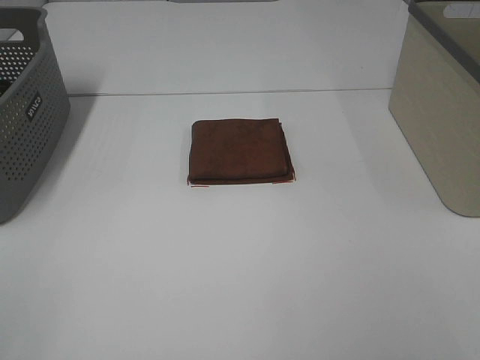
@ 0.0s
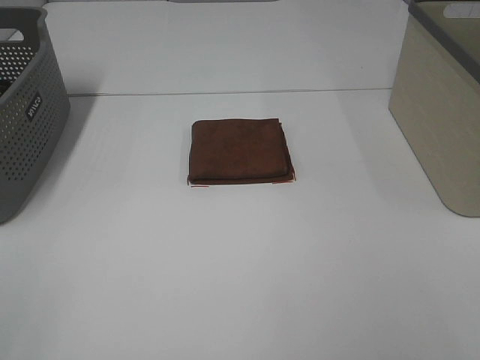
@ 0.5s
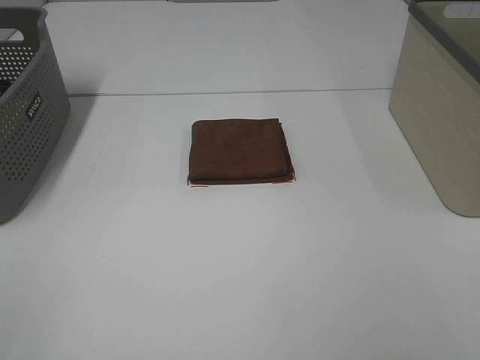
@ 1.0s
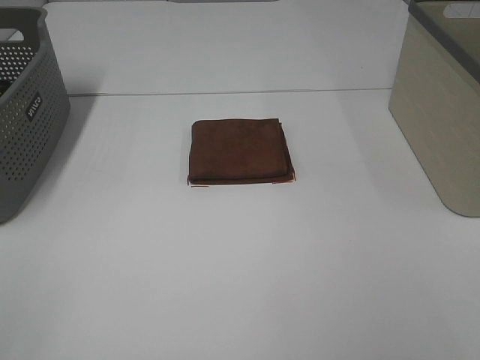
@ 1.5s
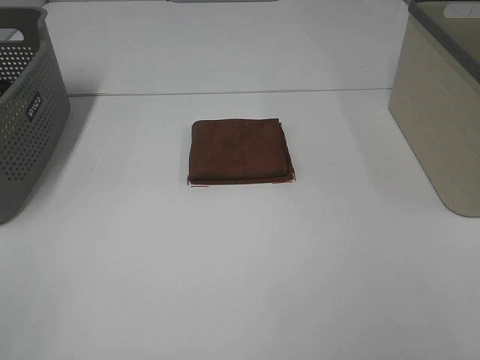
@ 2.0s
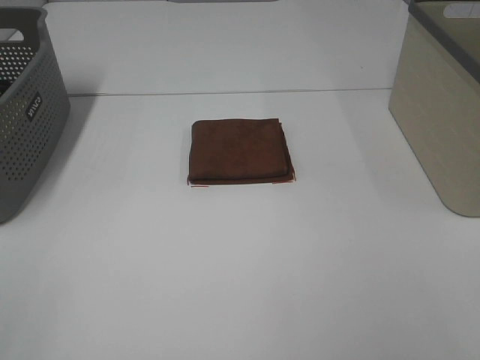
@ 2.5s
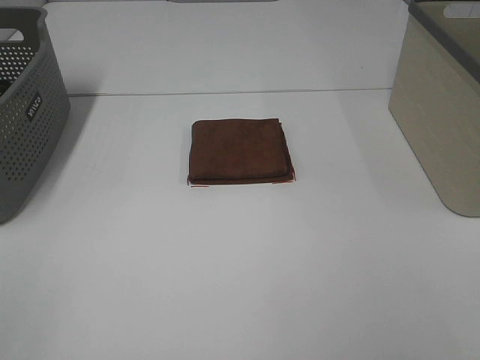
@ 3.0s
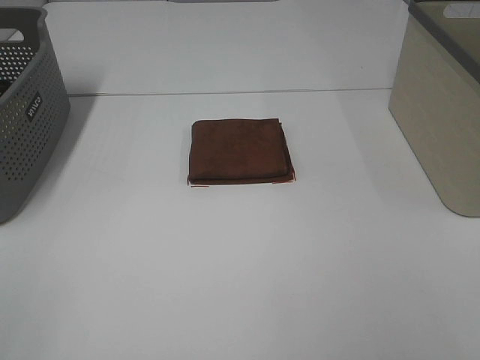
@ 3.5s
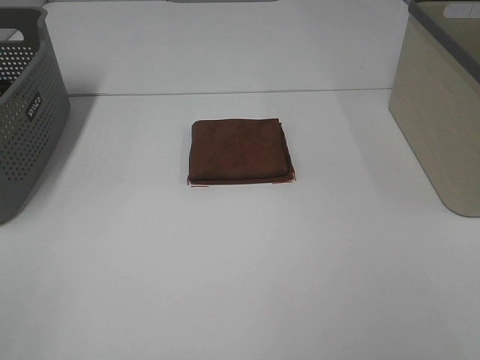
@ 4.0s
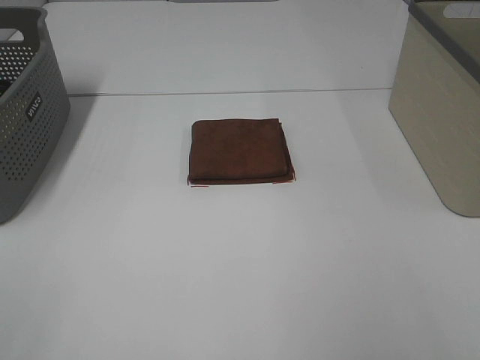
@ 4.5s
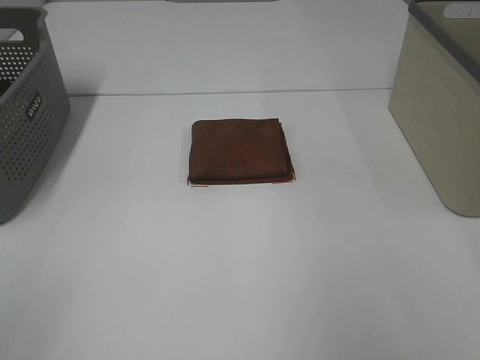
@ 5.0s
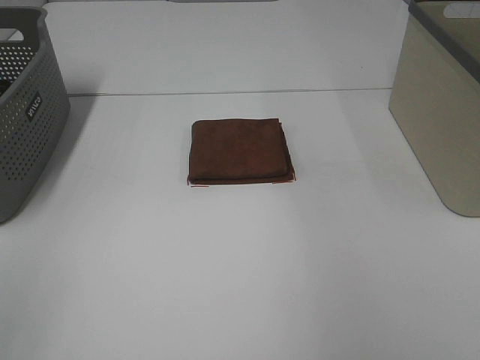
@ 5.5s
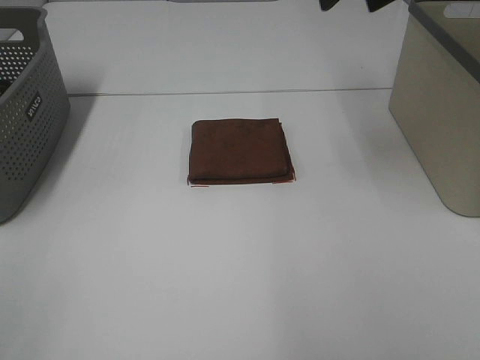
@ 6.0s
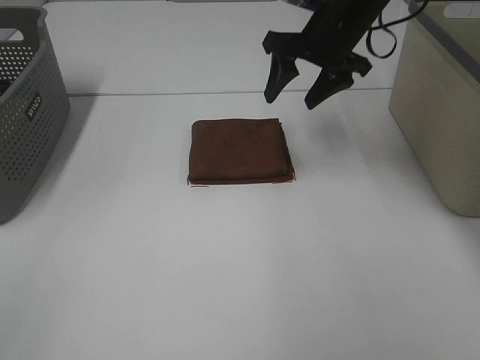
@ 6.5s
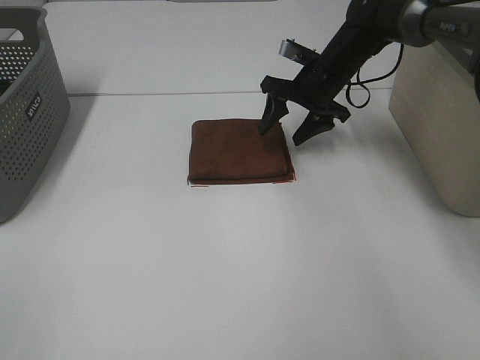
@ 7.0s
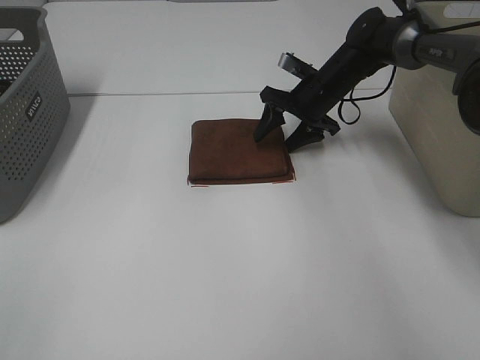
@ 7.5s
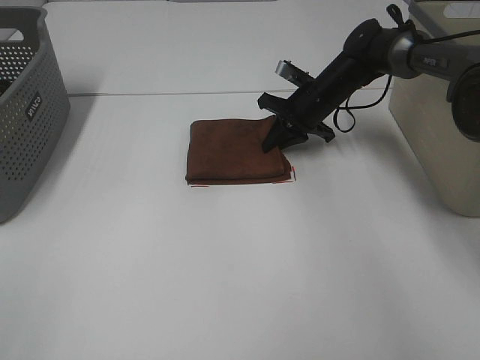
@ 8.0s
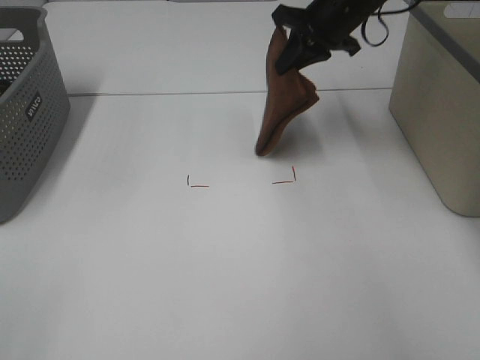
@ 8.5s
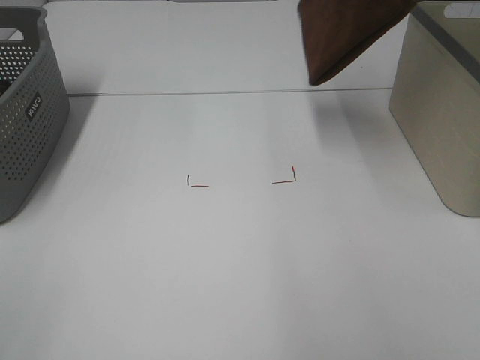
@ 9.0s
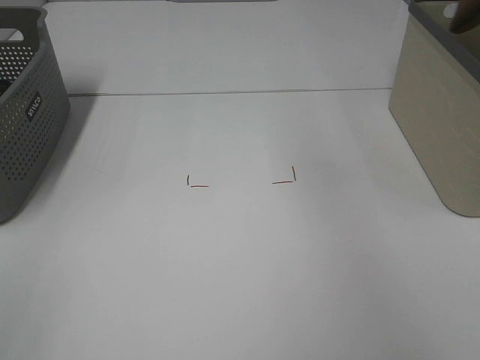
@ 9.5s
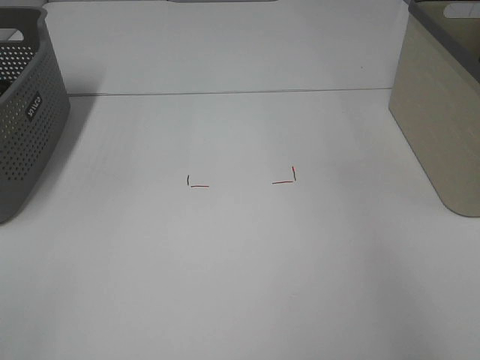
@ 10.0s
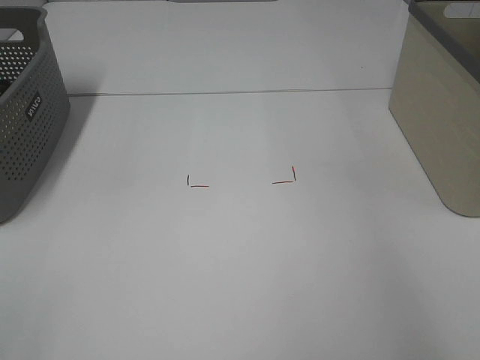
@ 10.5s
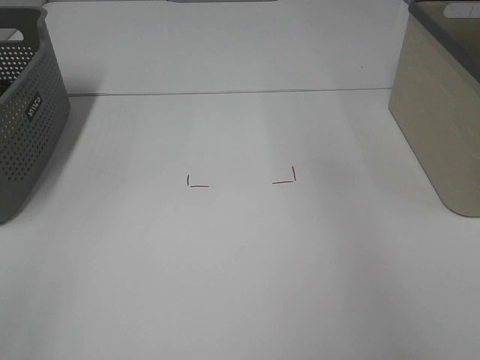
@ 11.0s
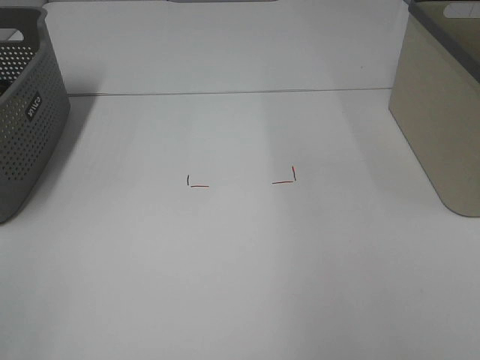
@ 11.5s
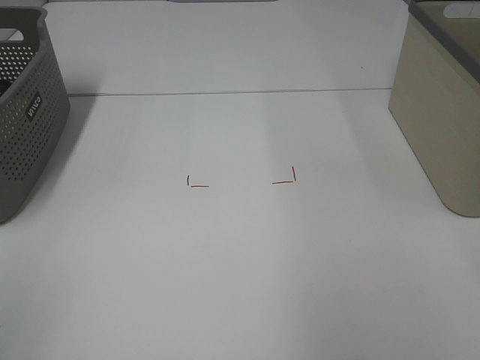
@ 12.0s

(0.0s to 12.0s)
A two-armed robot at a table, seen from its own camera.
Step, 0.0s - 7.5s: Right hand: grab the folded brown towel.
Step, 8.0s - 10.5s: Right hand: place the brown towel in right basket.
0.0s - 4.0s: Both grippers stay about where they are.
4.0s - 6.0s: The right gripper is displaced forward by about 40 cm.
6.0s - 8.0s: The right gripper goes roughly 25 cm downward, and closes its fingers.
8.0s - 10.0s: The right gripper travels upward and to the right by some 35 cm.

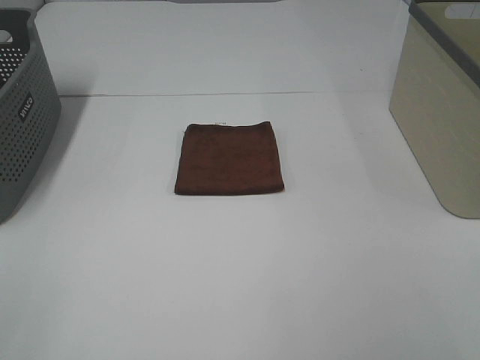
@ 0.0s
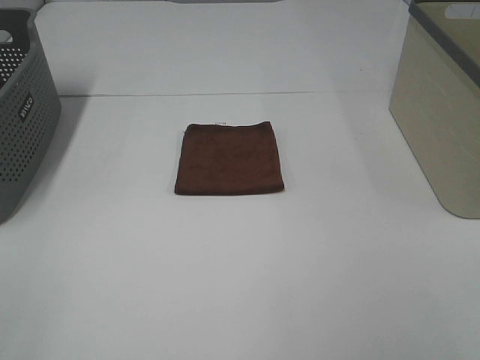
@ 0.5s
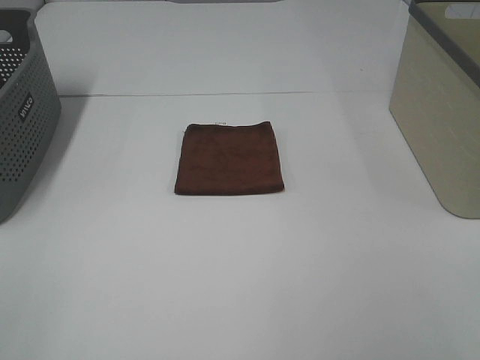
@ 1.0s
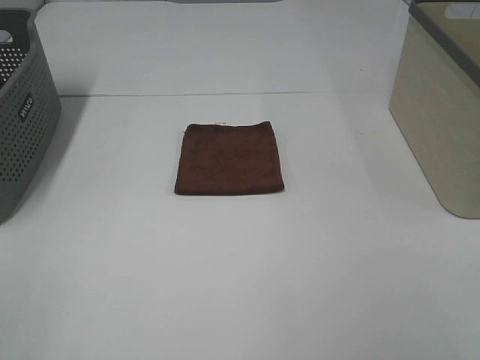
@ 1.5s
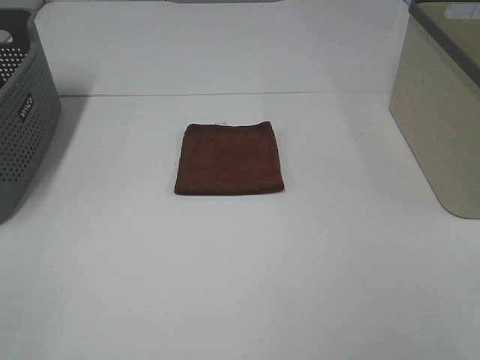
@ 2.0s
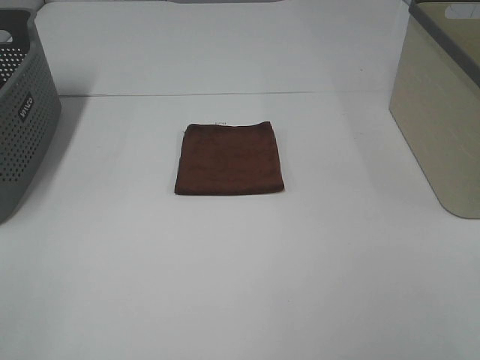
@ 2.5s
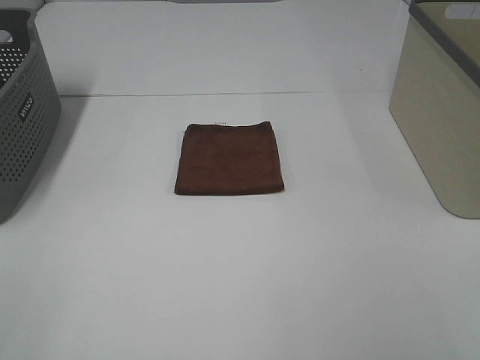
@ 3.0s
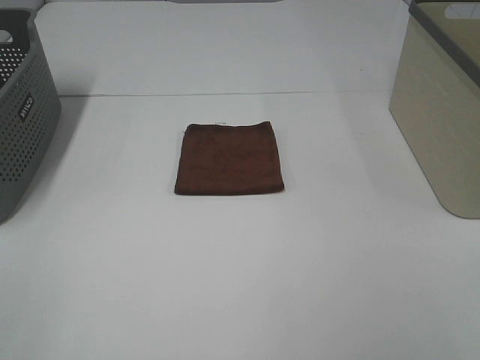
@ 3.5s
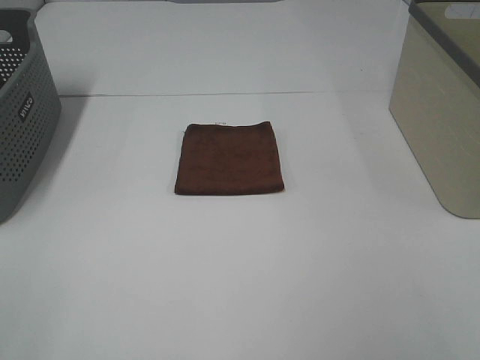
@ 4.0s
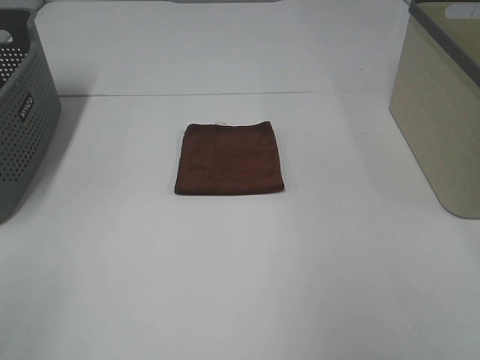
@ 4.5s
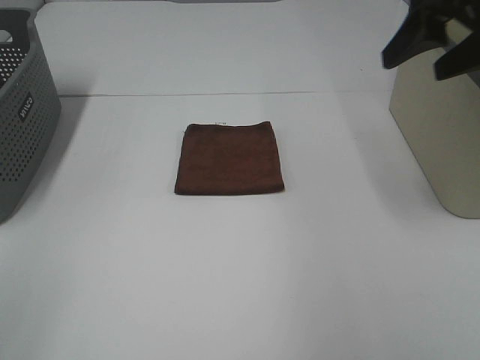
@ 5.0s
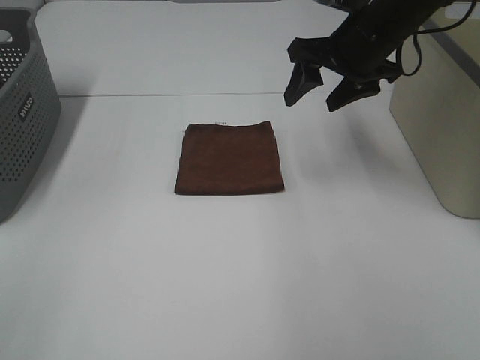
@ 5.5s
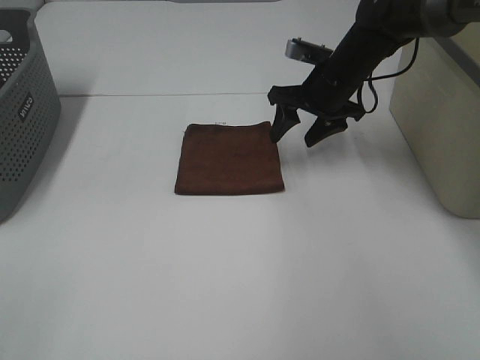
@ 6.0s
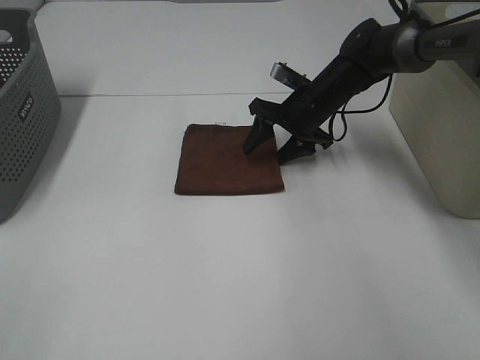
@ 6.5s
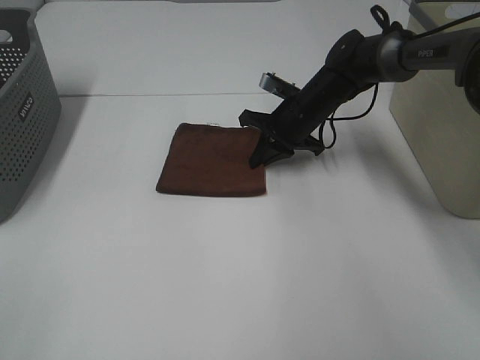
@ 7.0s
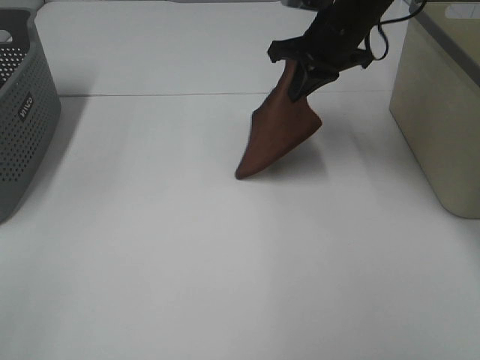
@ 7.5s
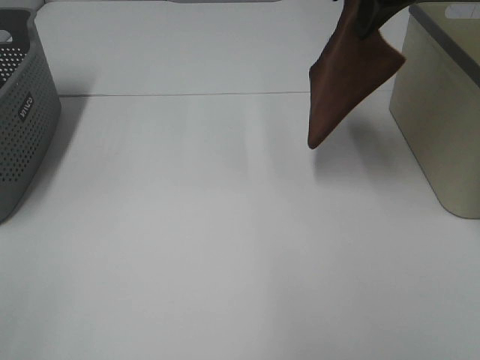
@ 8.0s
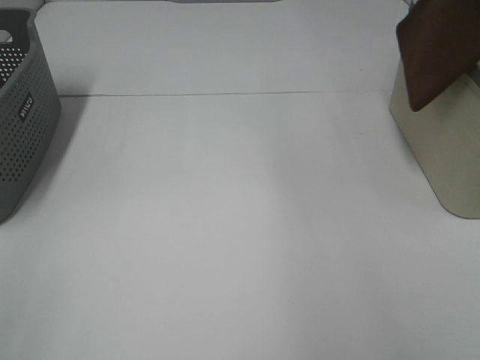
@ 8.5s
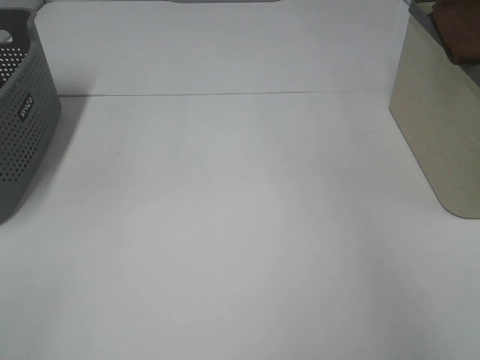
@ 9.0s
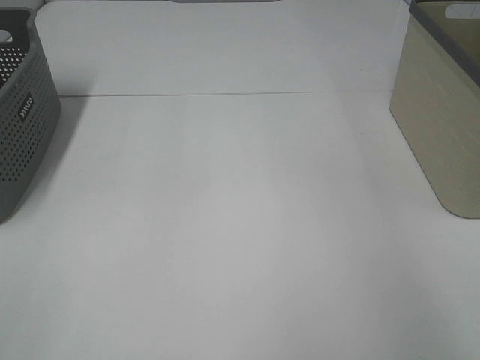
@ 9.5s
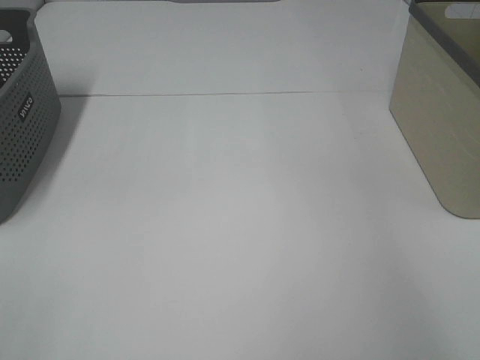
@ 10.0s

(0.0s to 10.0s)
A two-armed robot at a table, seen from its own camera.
Step, 0.0s - 7.0s: Right hand: grab the folded brown towel.
Step, 7.5s - 9.5s: Right hand: place the brown towel in right basket.
2.0s - 4.0s: The two grippers keep their place.
4.0s - 6.0s: The right gripper goes roughly 50 cm forward.
6.0s - 8.0s: The right gripper travels upward by about 15 cm, and closes up.
8.0s - 10.0s: The right gripper moves to the right, roughly 25 cm, and opens.
